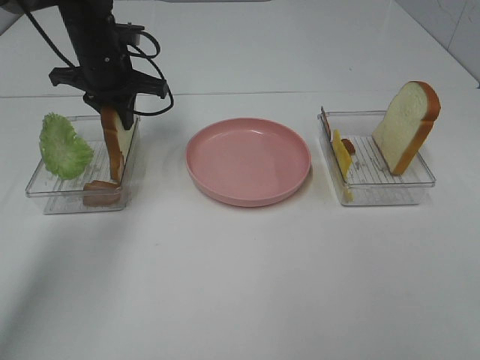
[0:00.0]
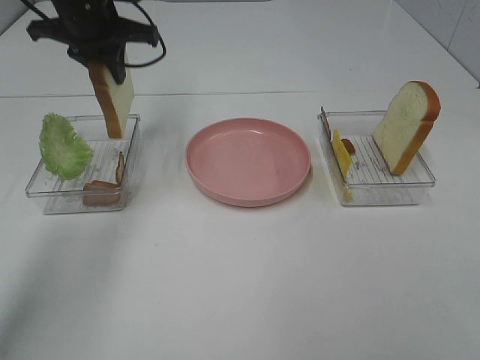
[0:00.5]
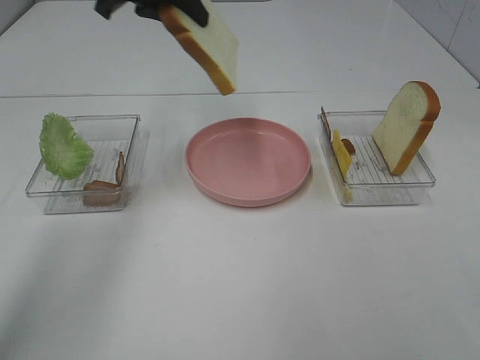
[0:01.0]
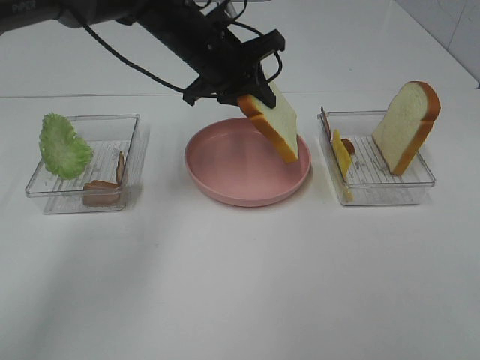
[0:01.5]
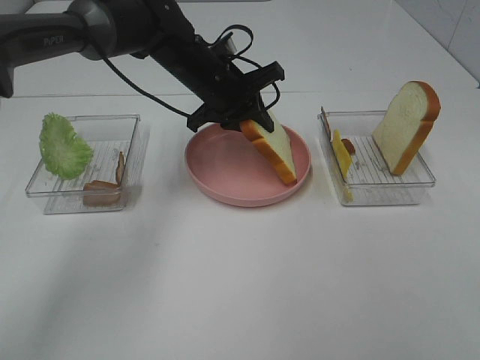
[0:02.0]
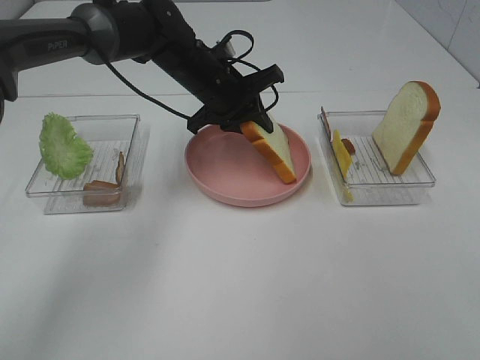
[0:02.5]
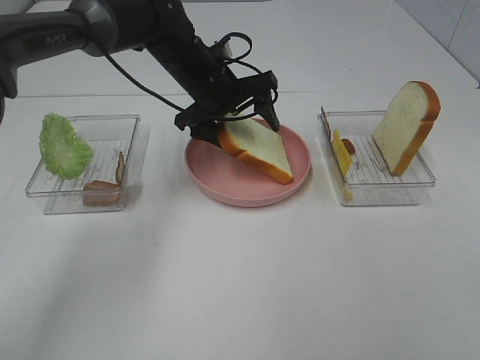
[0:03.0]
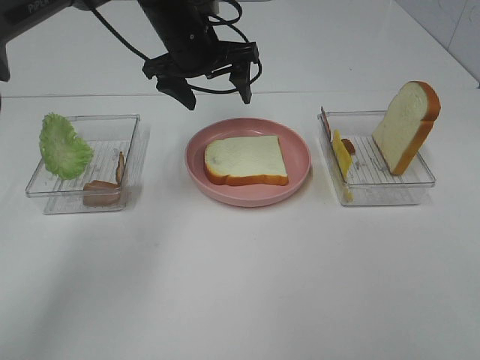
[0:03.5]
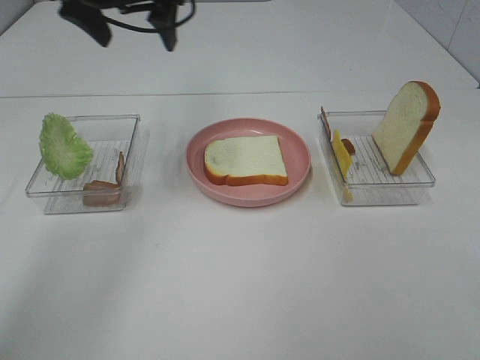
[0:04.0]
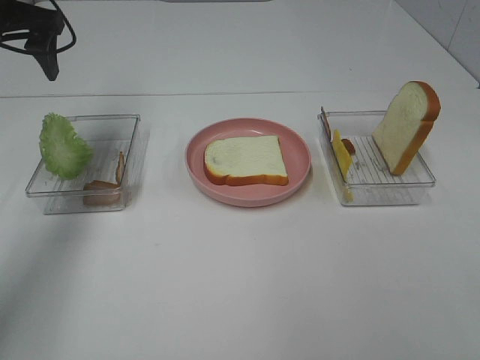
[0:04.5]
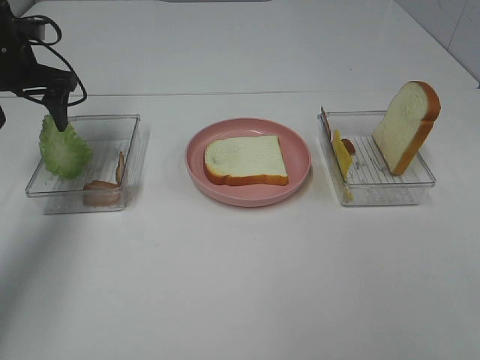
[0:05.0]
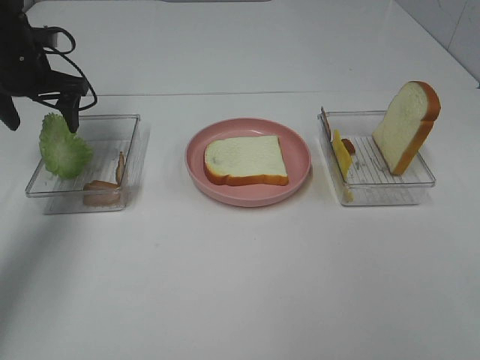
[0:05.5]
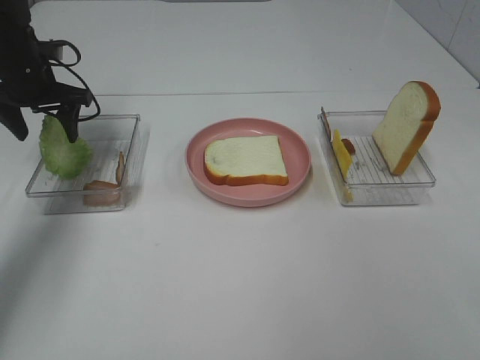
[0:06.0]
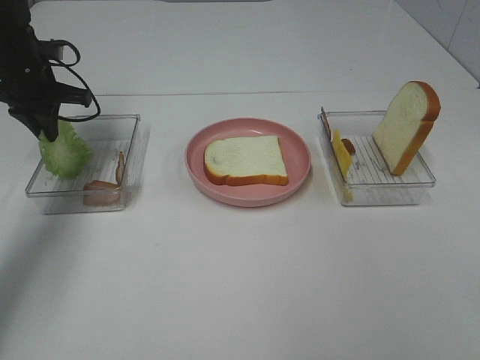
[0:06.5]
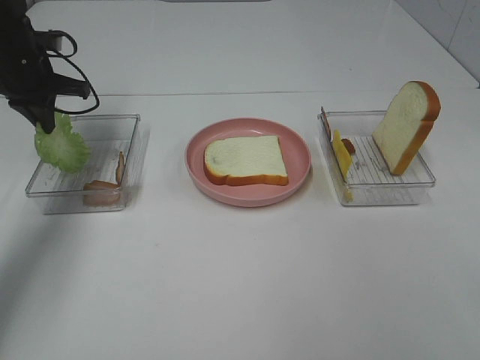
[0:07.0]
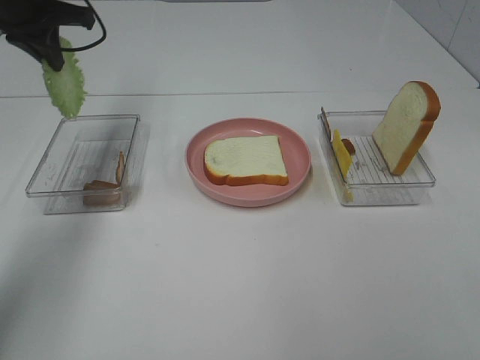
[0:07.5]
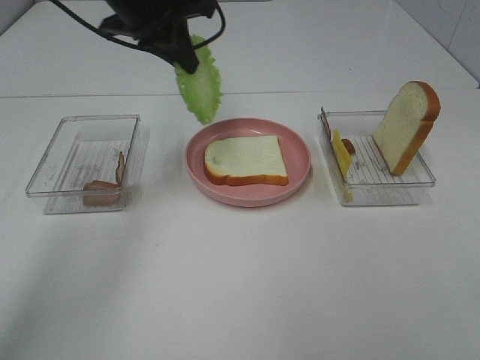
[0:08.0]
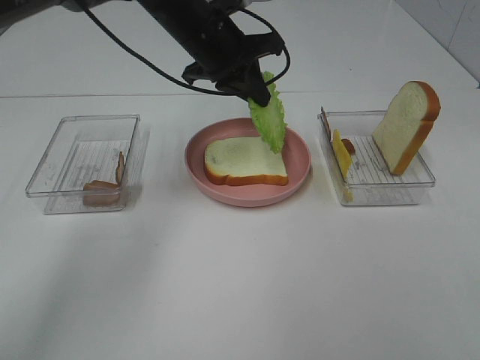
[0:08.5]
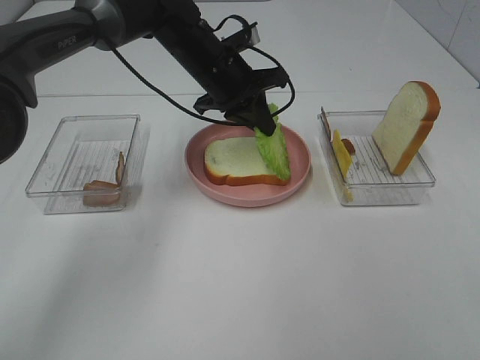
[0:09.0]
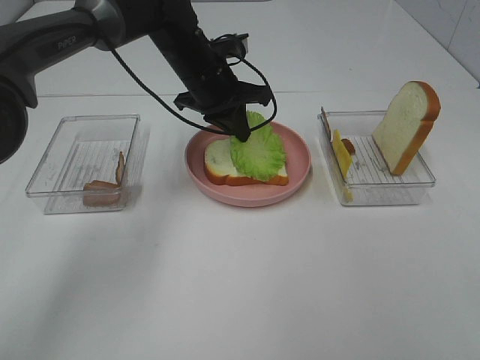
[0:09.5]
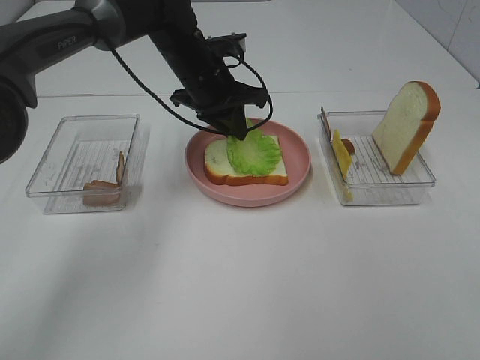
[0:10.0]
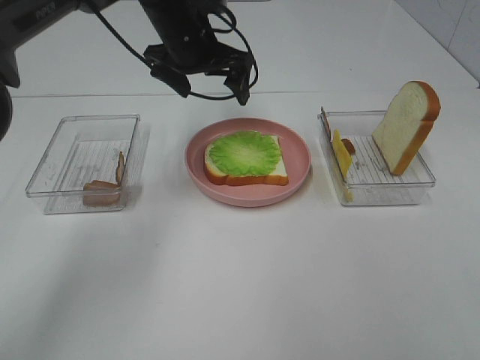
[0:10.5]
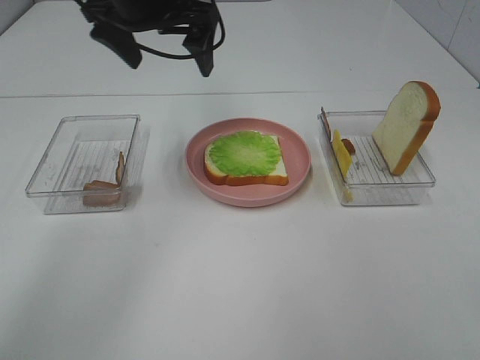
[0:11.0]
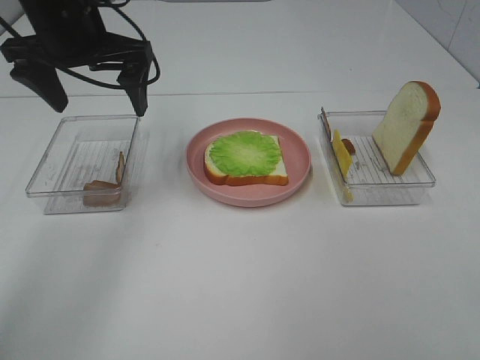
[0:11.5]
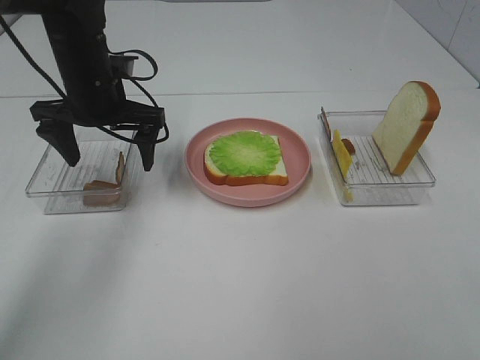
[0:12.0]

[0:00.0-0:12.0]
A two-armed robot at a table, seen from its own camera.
Task of the whole recording: Make sandwiches.
Step, 0:00.0 to 0:03.5: Left hand:place the bread slice on the plate.
Step, 0:04.0 to 0:06.5: Left hand:grab the lettuce slice.
Step, 0:07.0 to 0:10.0: Left hand:place the lettuce slice on the bread slice.
0:00.0 to 0:02.0: The left gripper travels to the right by approximately 15 cm, and moves approximately 15 cm upward and comes back.
0:02.0 to 0:04.0: The left gripper is displaced upward and to the left by some 20 cm, and opens its fingers.
0:04.0 to 0:06.0: The left gripper goes roughly 20 cm downward and to the left.
0:06.0 to 0:08.0: The left gripper travels to the right and upward by some 20 cm, and closes its fingers.
0:08.0 to 0:10.0: The left gripper moves downward and to the right, some 10 cm.
0:10.0 to 0:12.0: The left gripper heads to the left and backward, covering some 15 cm, moves about 15 cm upward and comes back, and opens.

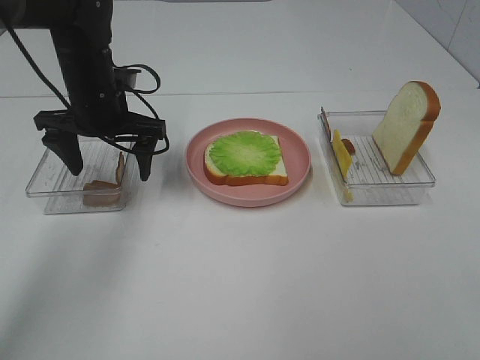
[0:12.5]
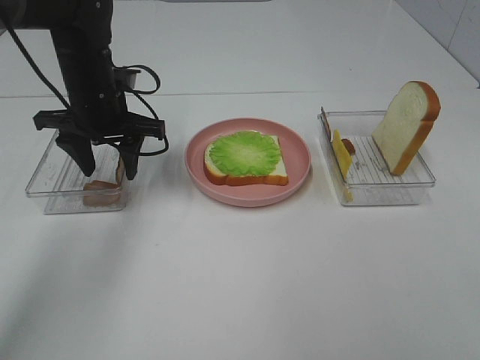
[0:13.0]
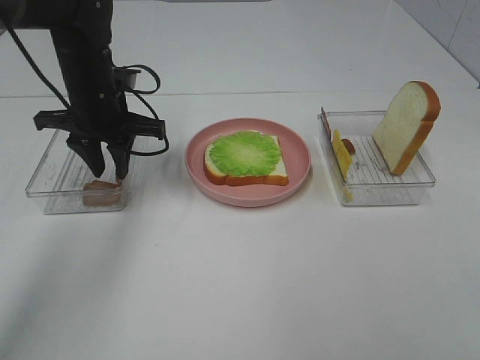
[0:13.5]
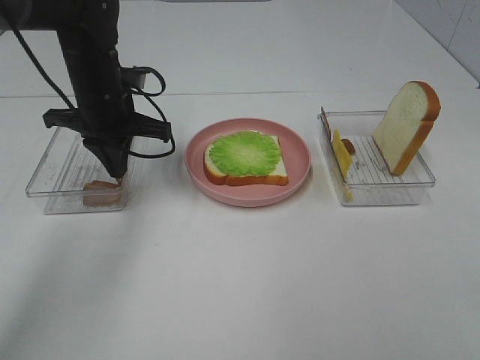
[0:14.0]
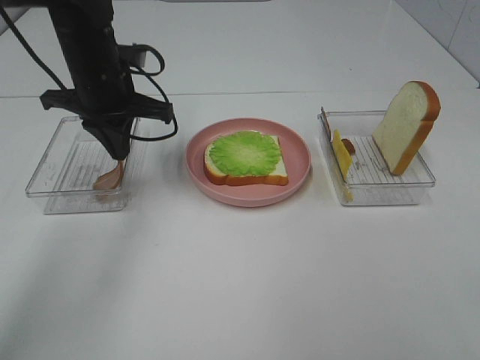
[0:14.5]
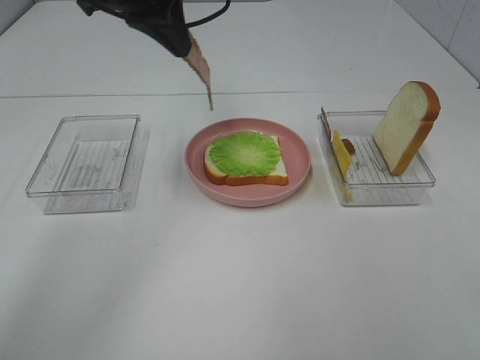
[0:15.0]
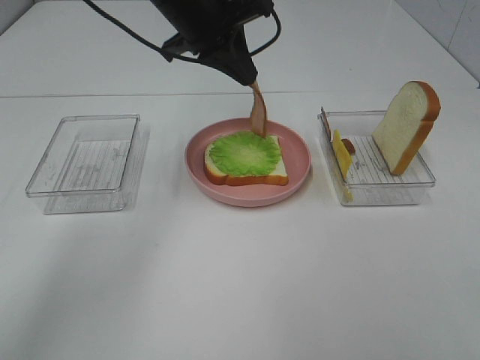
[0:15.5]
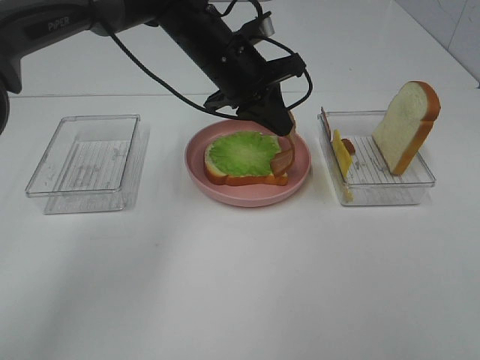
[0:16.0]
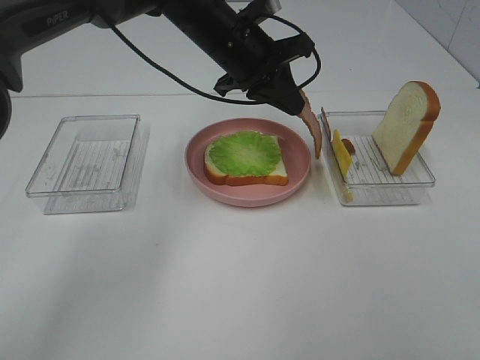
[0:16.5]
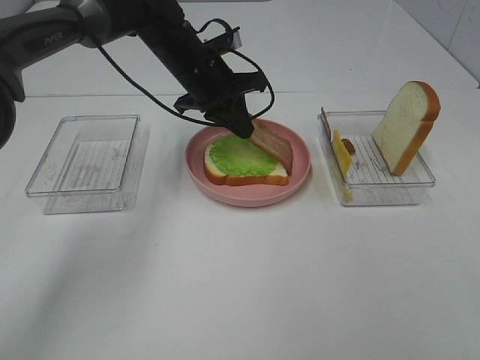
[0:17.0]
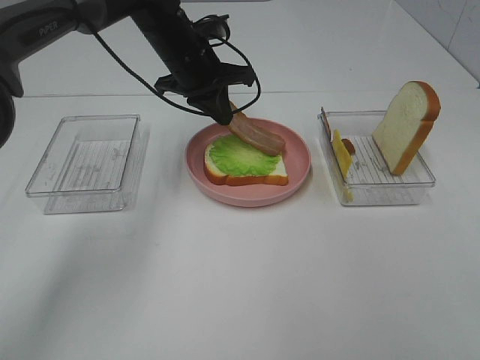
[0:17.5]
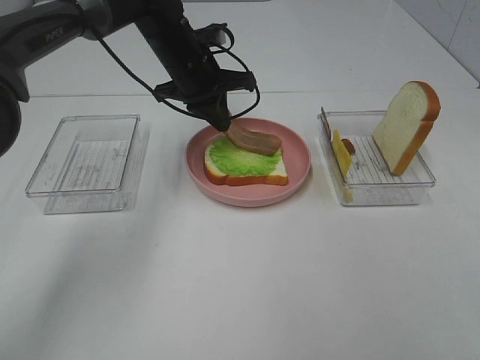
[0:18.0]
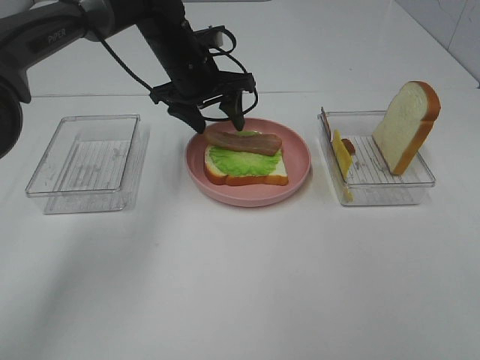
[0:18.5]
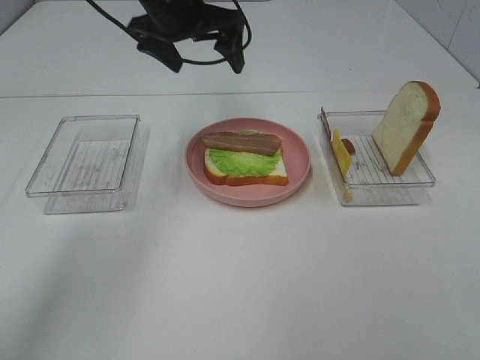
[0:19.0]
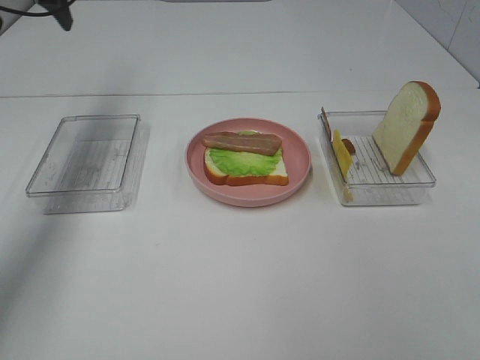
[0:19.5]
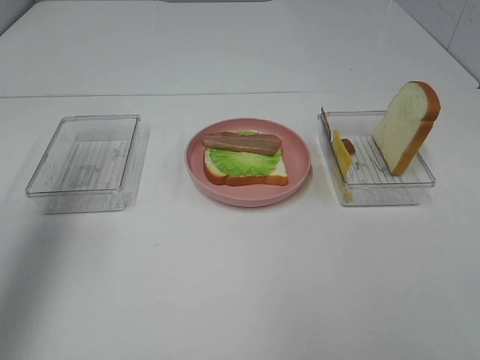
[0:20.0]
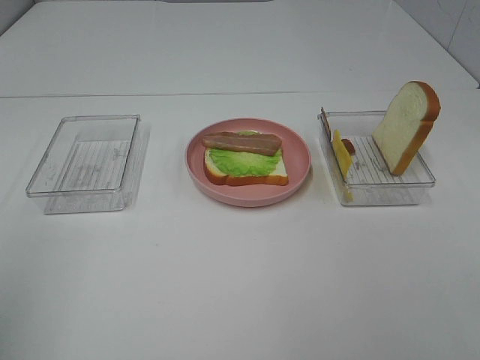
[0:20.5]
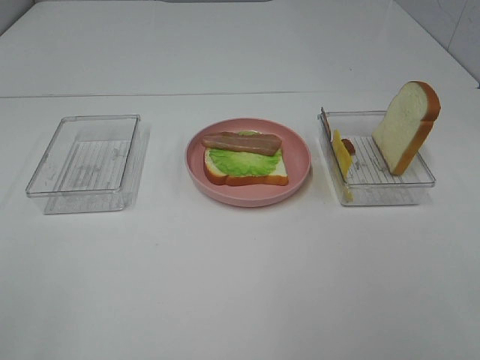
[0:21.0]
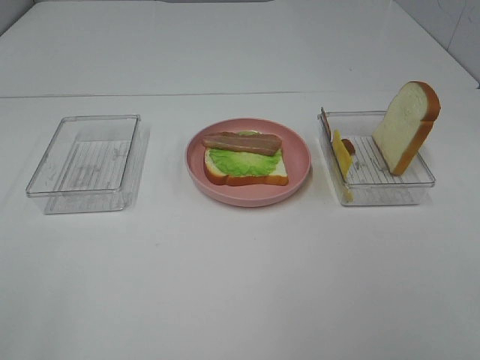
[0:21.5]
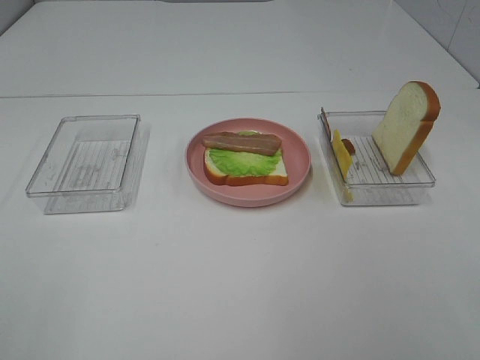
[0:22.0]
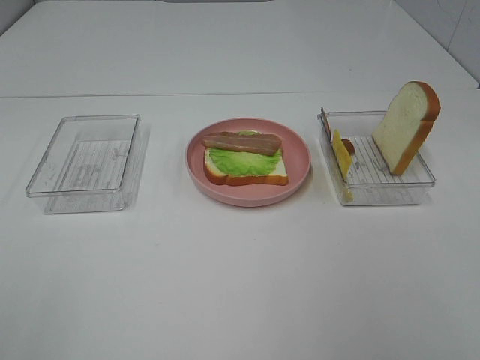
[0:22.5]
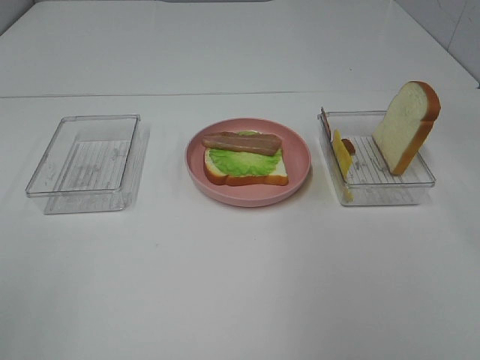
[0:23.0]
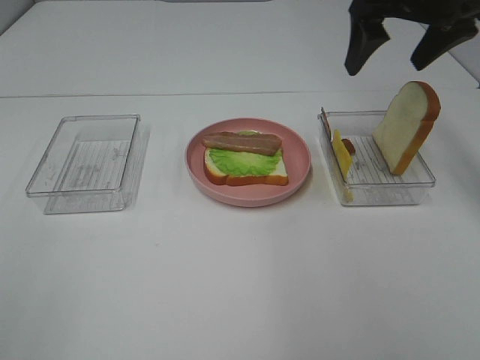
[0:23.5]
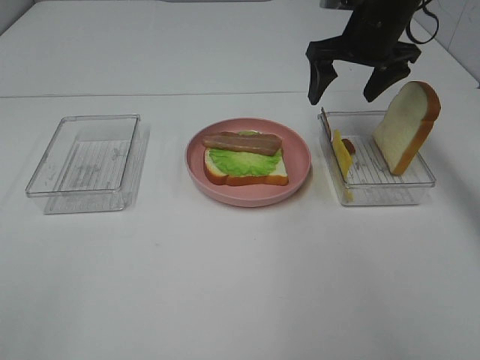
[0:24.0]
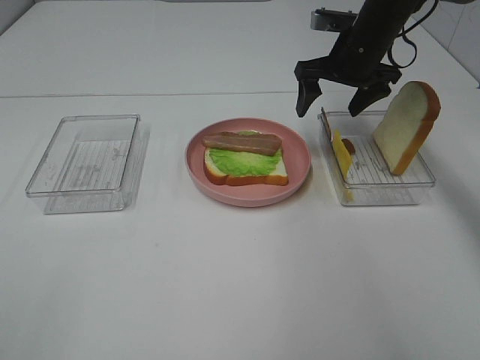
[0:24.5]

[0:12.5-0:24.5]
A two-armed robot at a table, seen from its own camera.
Task of the whole recording: Make sandwiches.
Step, 0:14.0 to 0:18.5: Left hand:place bacon on lettuce slice.
0:12.5 to 0:14.5: The left gripper closes up.
0:14.5 to 0:16.5: The left gripper is displaced to the right by about 15 cm.
0:16.5 to 0:18.5: The left gripper shifts about 5 cm to the left, and opens.
0:18.5 to 0:20.5: The left gripper is displaced backward and to the left by roughly 50 cm.
0:22.5 to 0:24.5: The right gripper is displaced forward by approximately 40 cm.

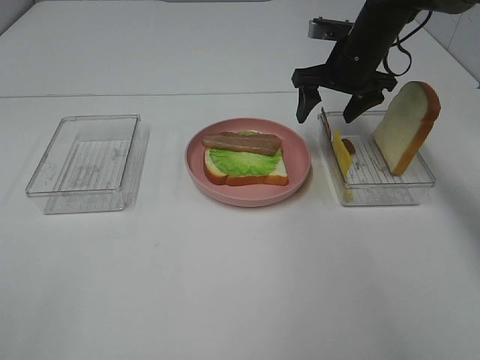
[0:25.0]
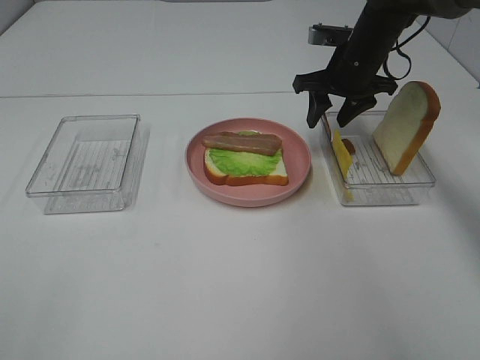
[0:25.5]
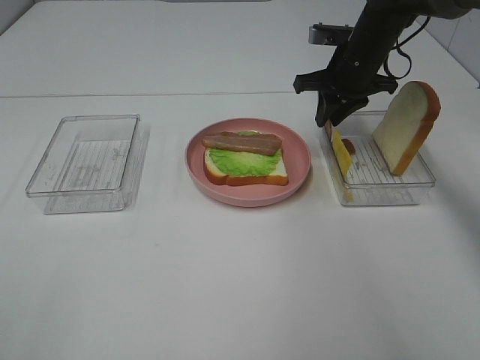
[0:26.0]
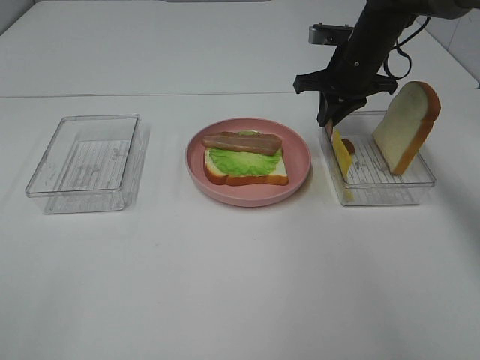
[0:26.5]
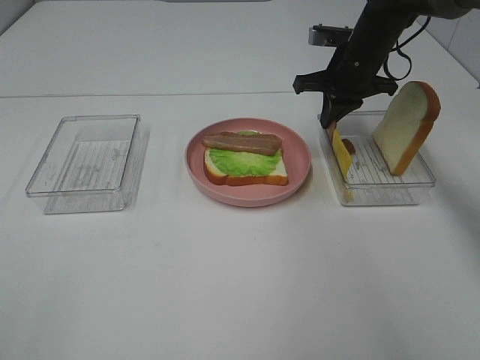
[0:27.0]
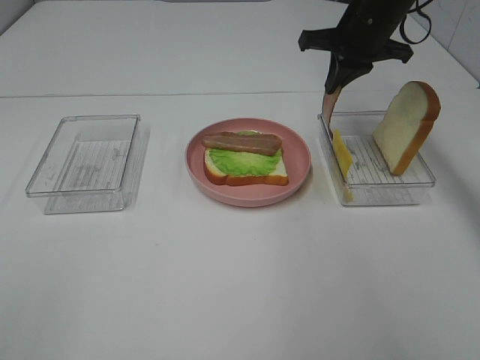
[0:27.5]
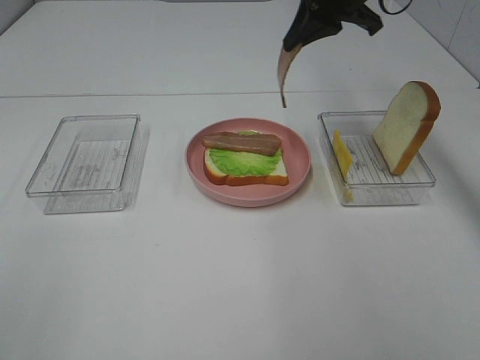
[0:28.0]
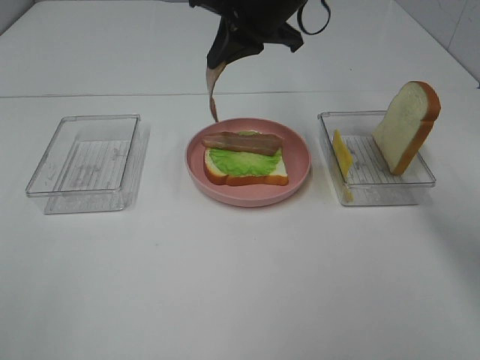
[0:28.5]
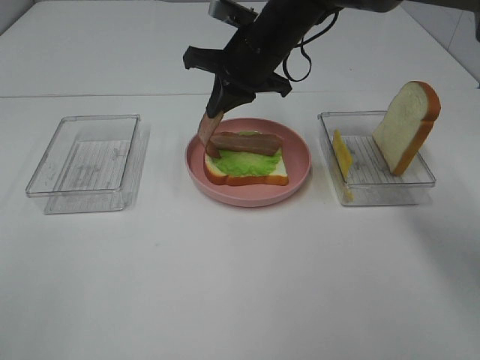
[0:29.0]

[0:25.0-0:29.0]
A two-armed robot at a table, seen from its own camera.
Task of the whole recording: Make sandwiches.
0:25.0 to 0:27.0: The right gripper closes up.
0:27.0 to 0:29.0: The right gripper is displaced to the left by some 15 cm.
